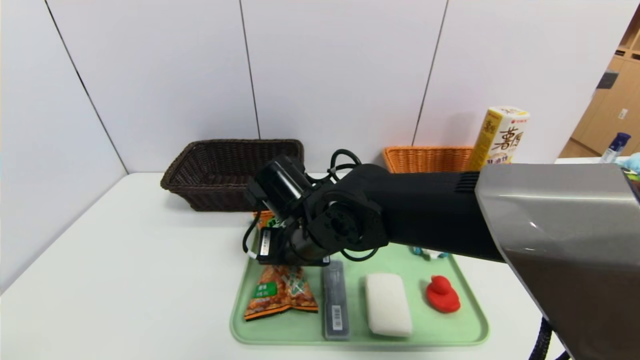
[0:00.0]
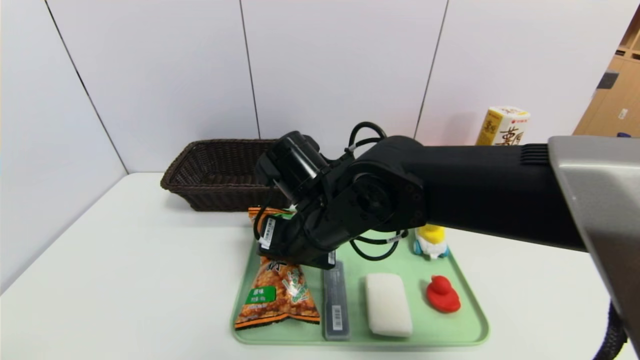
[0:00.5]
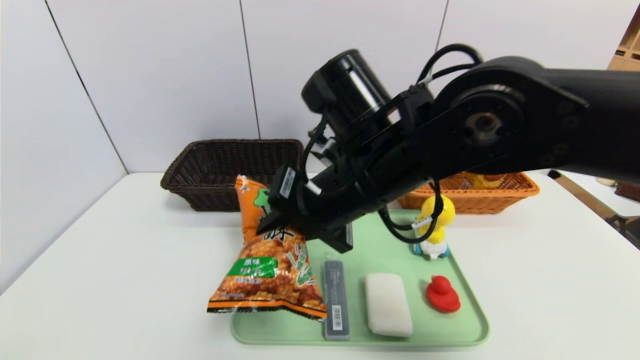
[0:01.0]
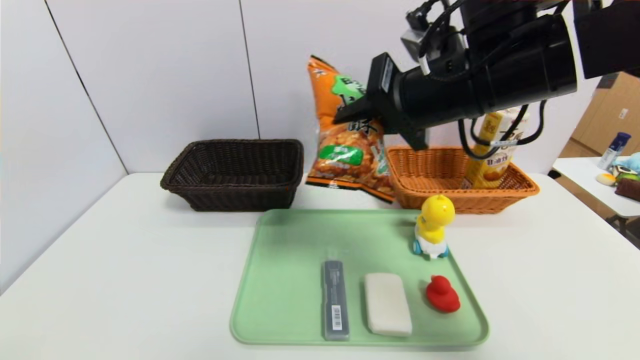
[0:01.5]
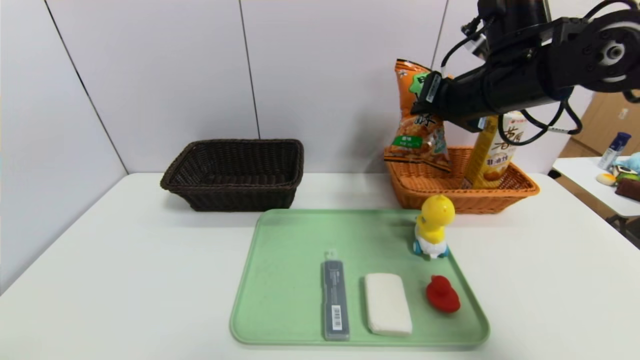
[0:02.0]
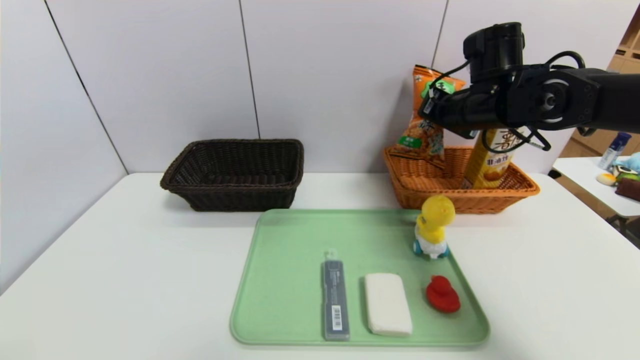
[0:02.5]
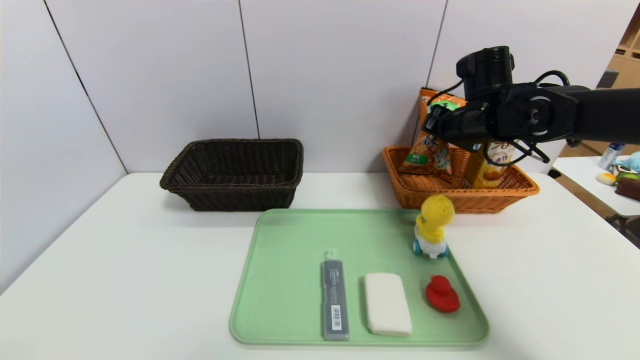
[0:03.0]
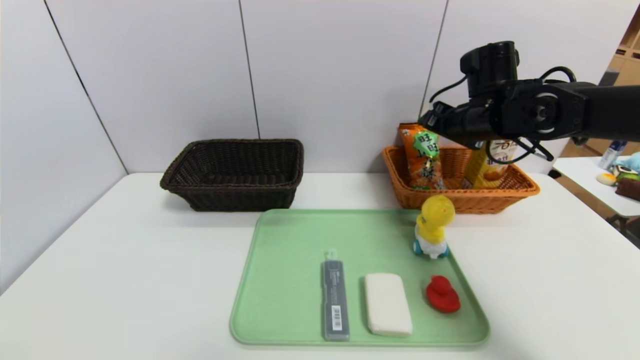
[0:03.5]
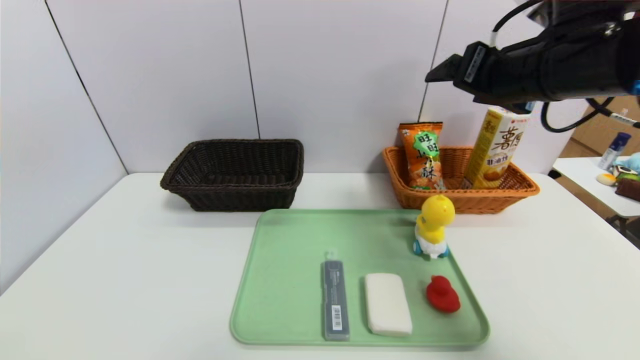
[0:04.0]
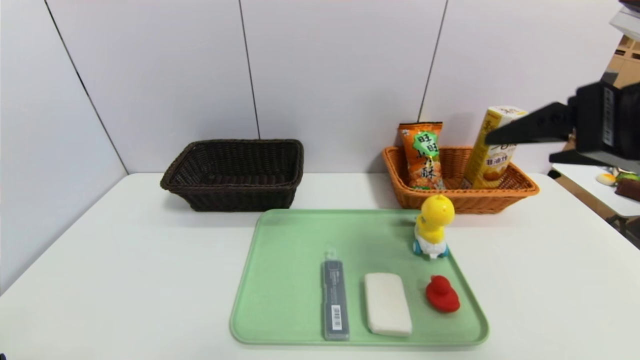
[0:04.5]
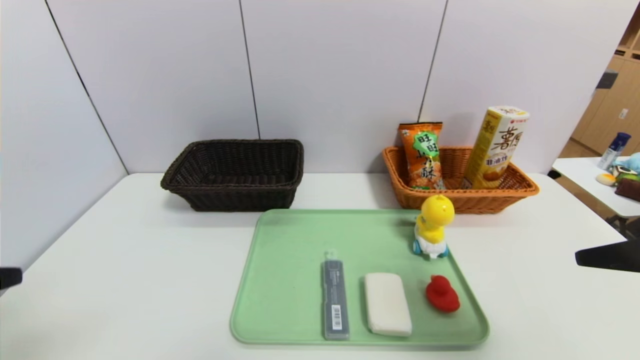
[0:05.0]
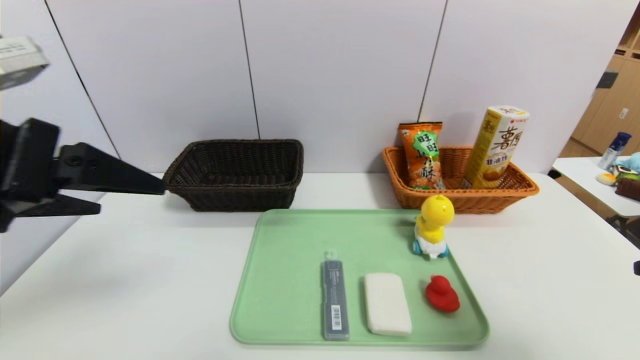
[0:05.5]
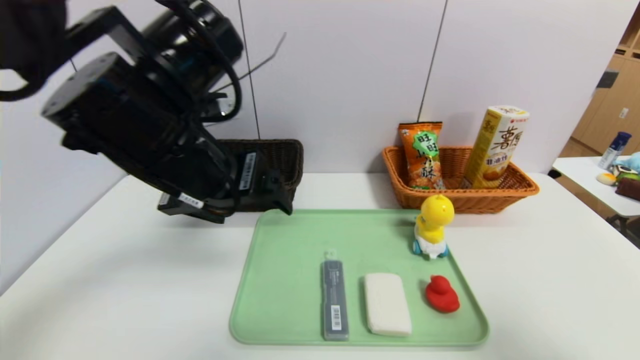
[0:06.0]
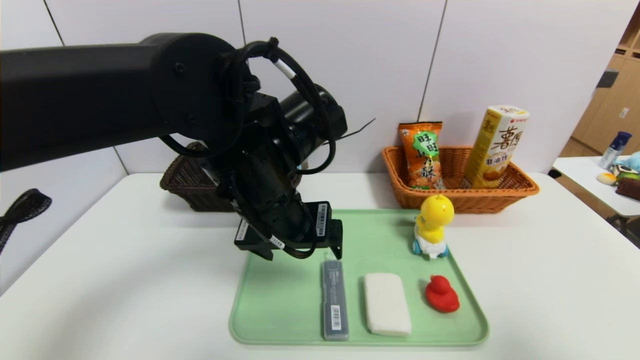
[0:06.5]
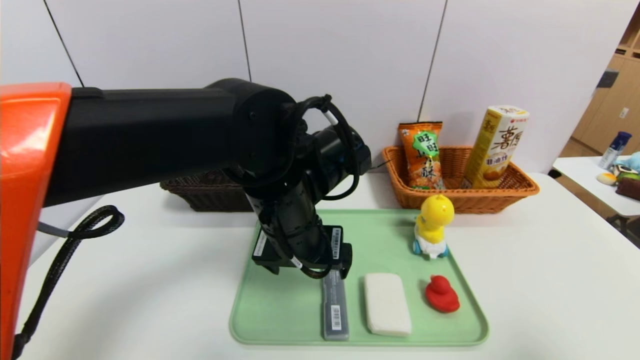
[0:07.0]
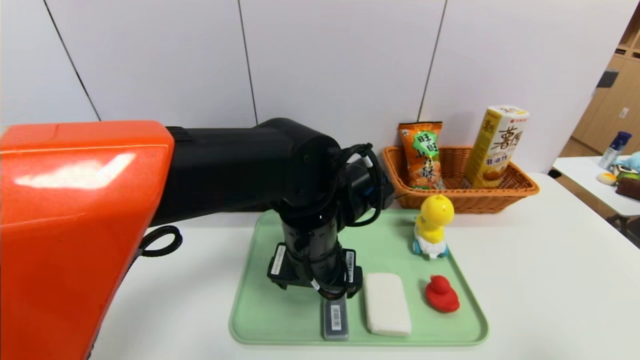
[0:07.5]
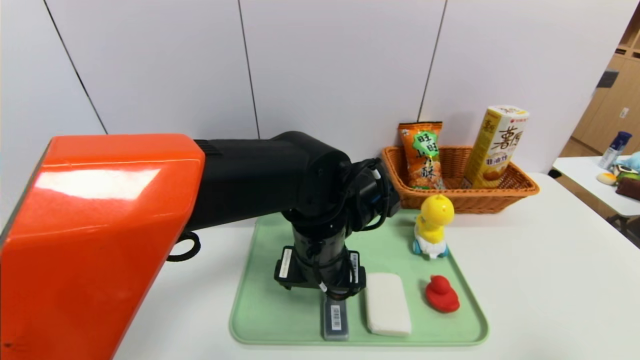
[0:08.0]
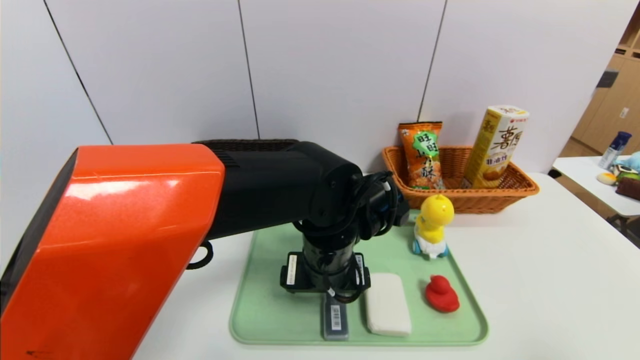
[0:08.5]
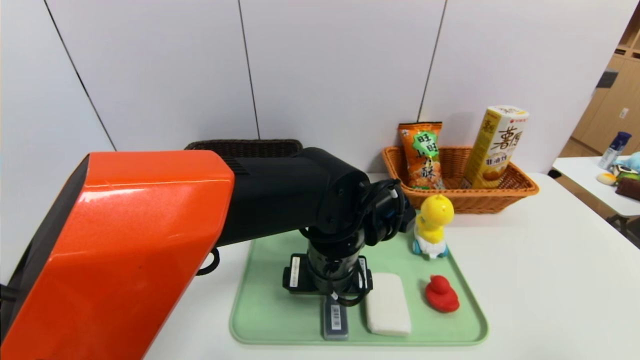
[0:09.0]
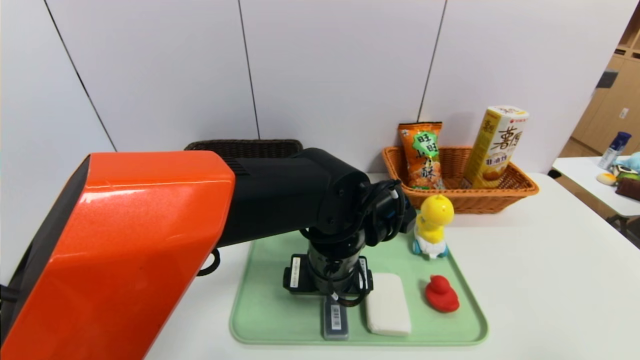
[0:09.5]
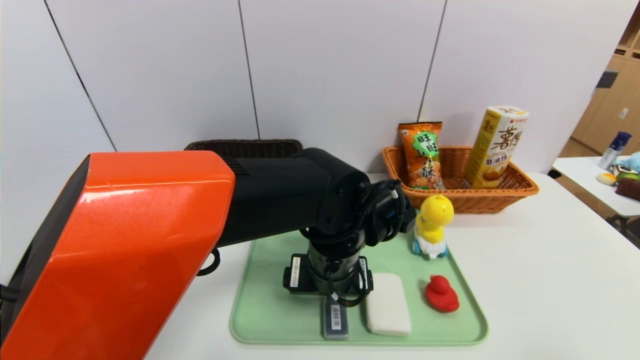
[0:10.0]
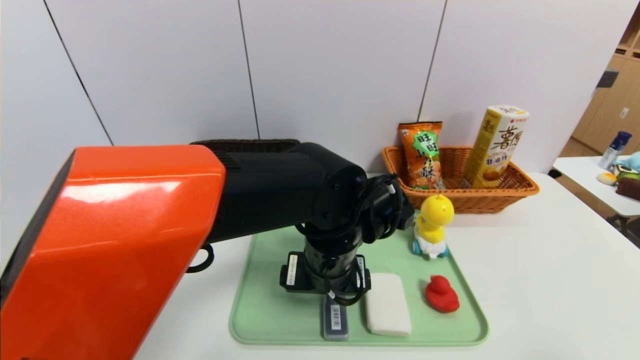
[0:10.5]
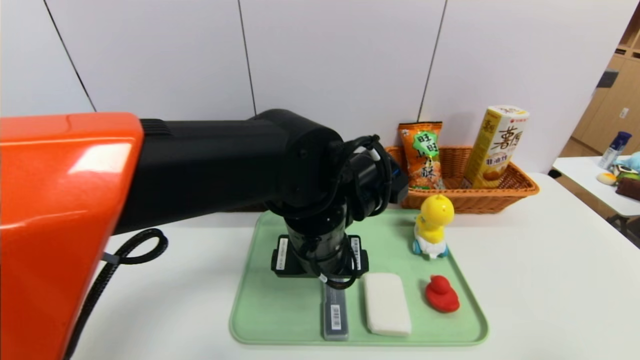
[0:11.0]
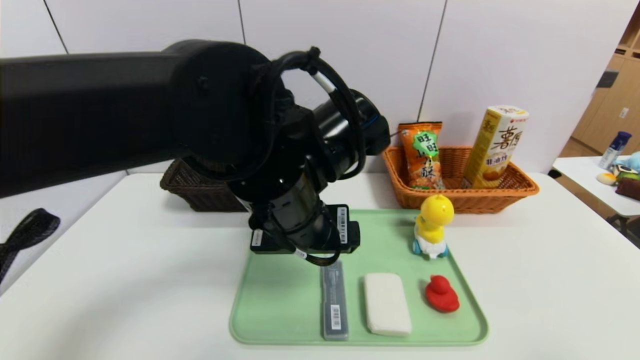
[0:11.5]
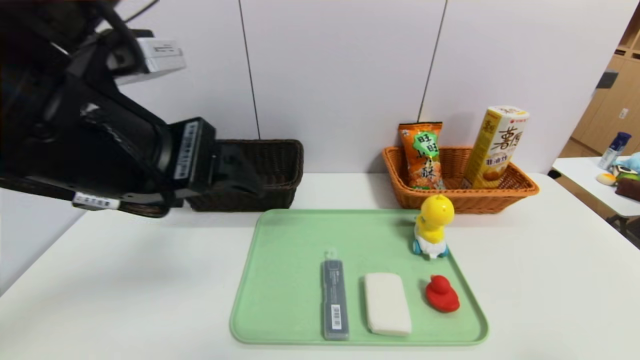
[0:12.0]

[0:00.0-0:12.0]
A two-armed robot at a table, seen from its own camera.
Task of the whole recording: place the food in the right basket with the right gripper, and place the non food items in the left basket with the left gripper.
Step, 0:00.0 to 0:03.0: Grasp the cookie and put it in the right basket.
0:00.0 to 0:02.0: The right gripper heads to the right and upward, covering approximately 30 cm.
0:02.0 to 0:04.0: The right gripper moves backward, about 5 cm, and opens up.
0:04.0 to 0:06.0: The right gripper moves backward and to the right, some 25 cm; the left gripper travels forward and to the right by about 30 cm.
0:06.0 to 0:08.0: The right gripper moves approximately 5 cm; the left gripper shifts some 20 cm downward and to the right.
0:08.0 to 0:10.0: The grippers stay close to where they were, moving slightly.
0:10.0 to 0:12.0: The left gripper goes about 25 cm upward, to the left and backward.

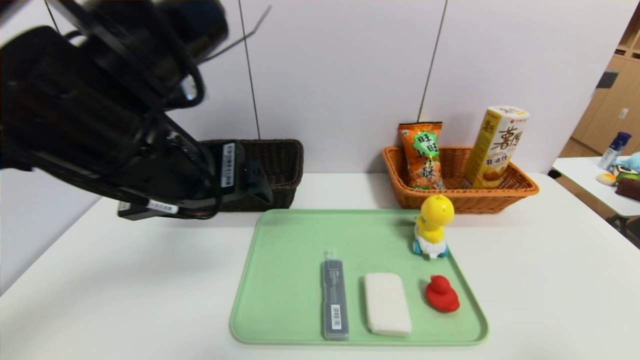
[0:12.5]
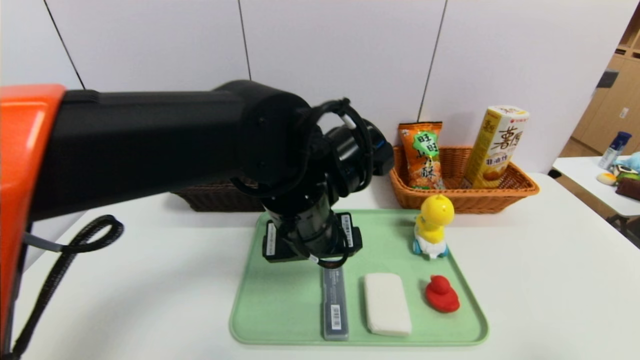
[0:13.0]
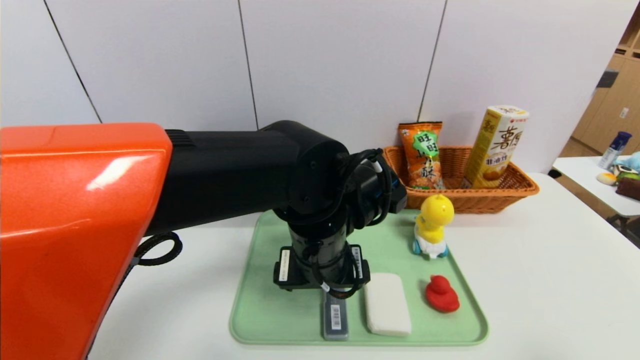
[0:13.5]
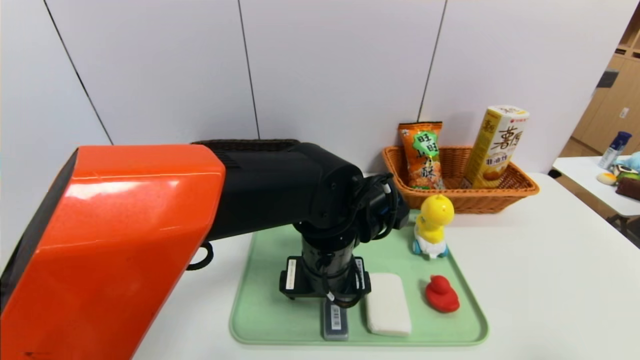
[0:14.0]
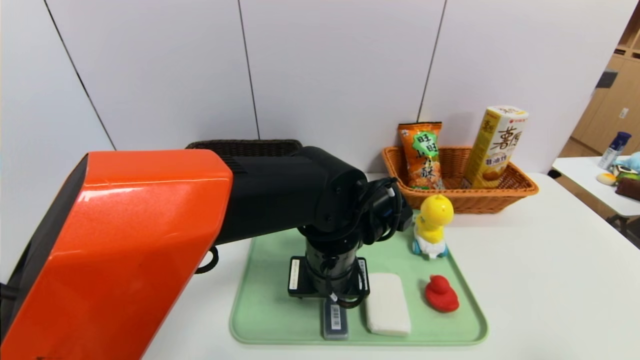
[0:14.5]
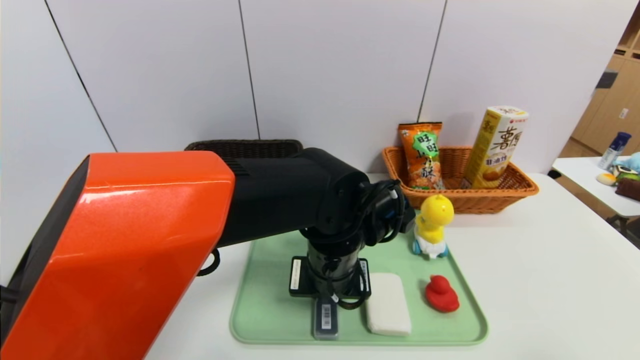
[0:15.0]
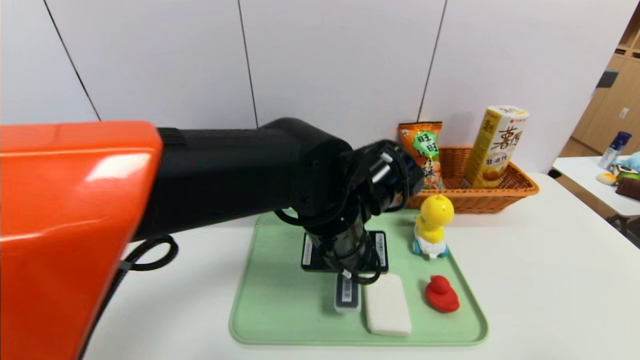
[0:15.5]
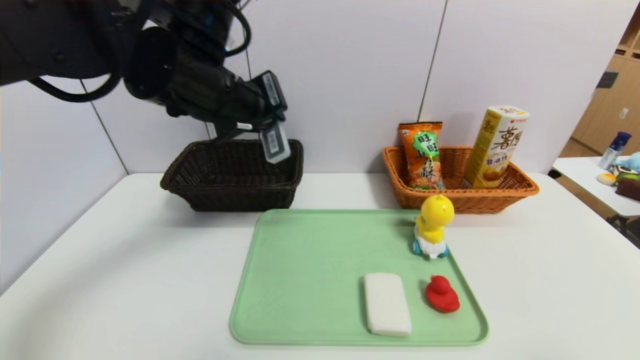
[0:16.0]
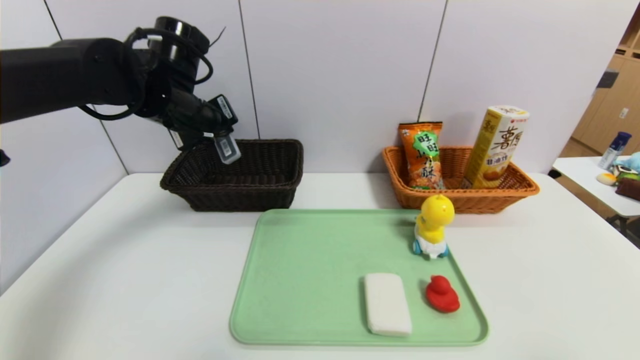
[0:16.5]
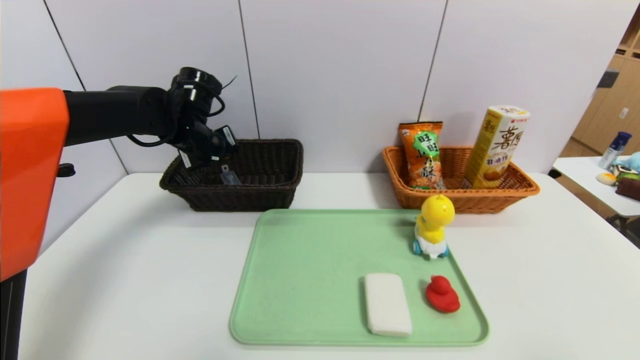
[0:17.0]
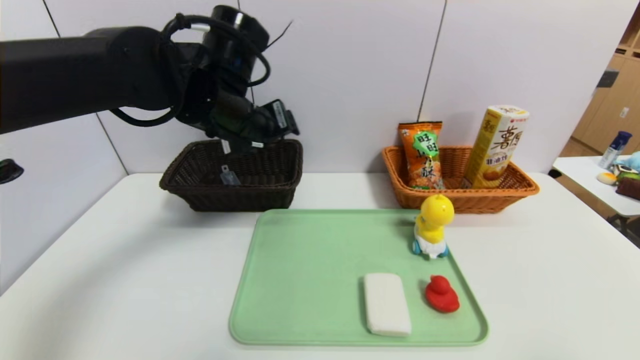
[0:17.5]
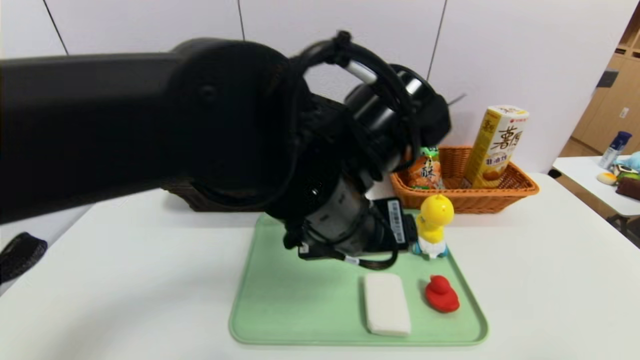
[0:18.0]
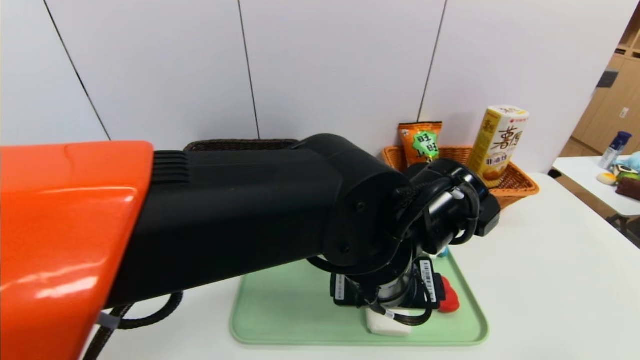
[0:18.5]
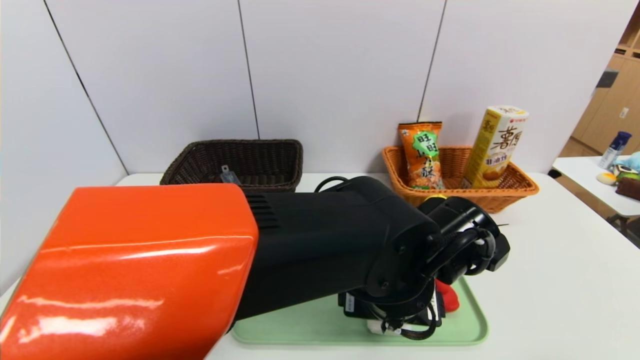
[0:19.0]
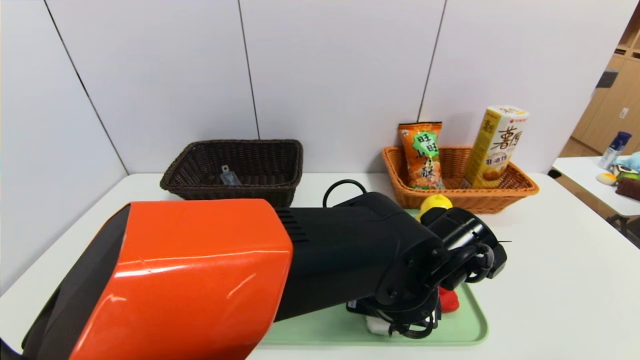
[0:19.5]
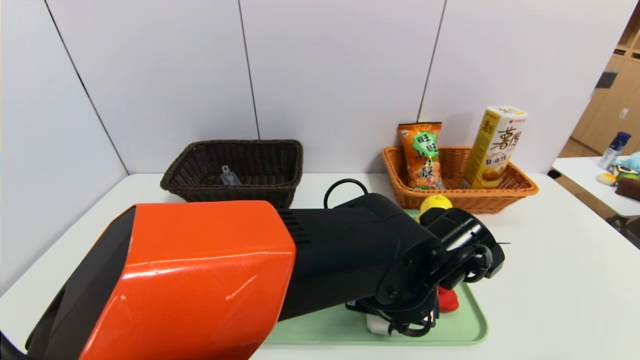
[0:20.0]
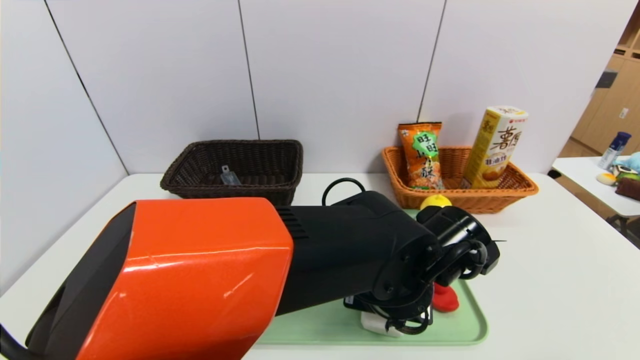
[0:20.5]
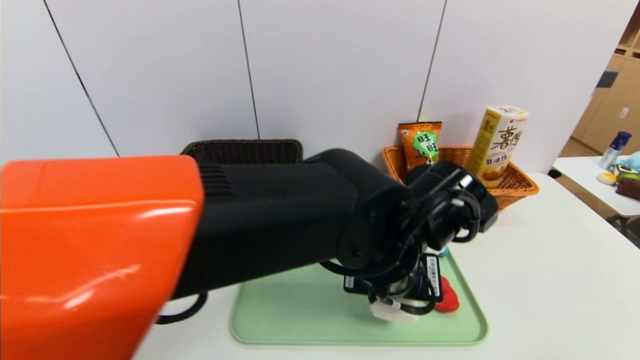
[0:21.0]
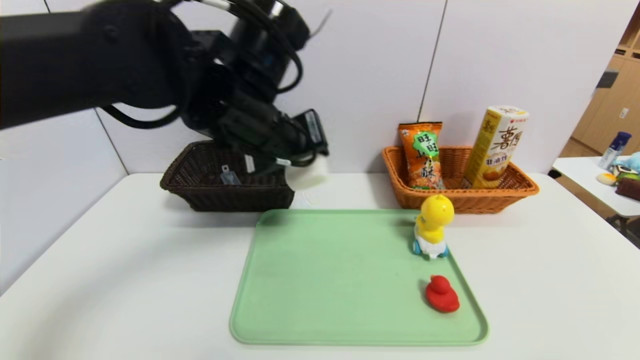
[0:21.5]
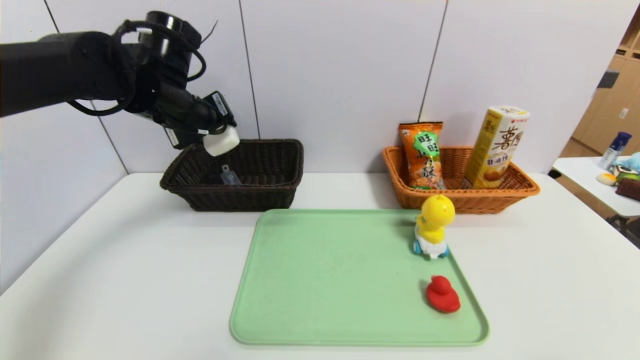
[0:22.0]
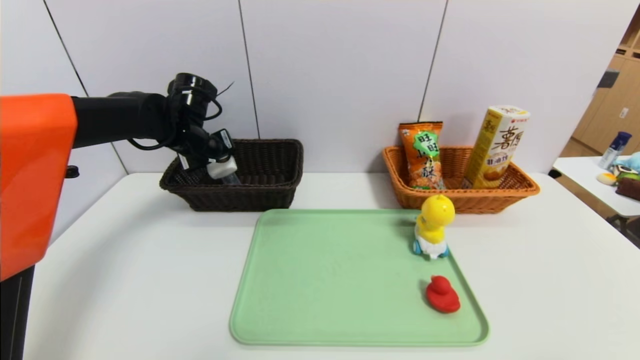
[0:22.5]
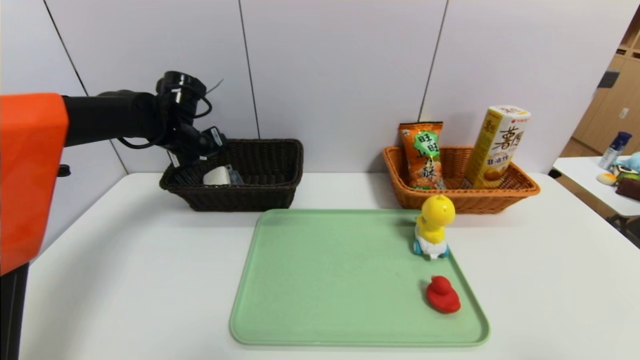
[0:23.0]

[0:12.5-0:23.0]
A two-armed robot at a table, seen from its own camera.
Task of the whole recording: place the food in the right basket with the right gripper, and place the non food items in the left basket with the left gripper.
Step, 0:12.5 to 0:17.0: Grasp the compass and put it in the left basket.
Step, 0:17.5 to 0:22.5: Grasp the soap and put it in the left basket.
0:12.5 to 0:14.5: The left gripper travels downward and to the right by some 25 cm, and closes its fingers.
0:14.5 to 0:16.5: The left gripper moves to the left, forward and upward, approximately 30 cm, and closes.
0:16.5 to 0:19.0: The left gripper shifts roughly 35 cm to the right, backward and downward, and opens its fingers.
0:19.0 to 0:21.0: The left gripper closes.
0:21.0 to 0:23.0: The left gripper moves to the left and forward, approximately 35 cm, and opens.
